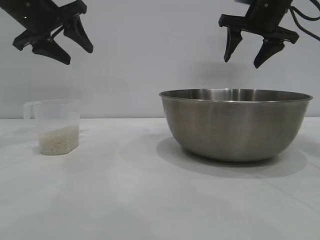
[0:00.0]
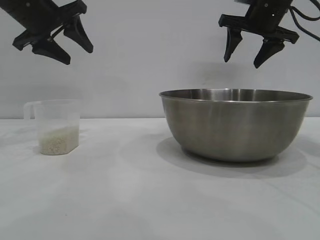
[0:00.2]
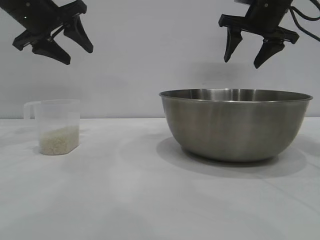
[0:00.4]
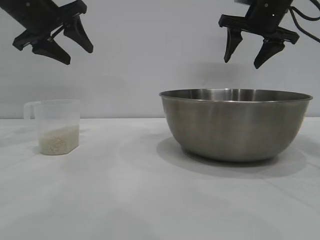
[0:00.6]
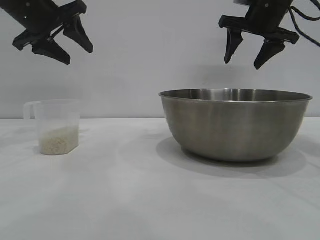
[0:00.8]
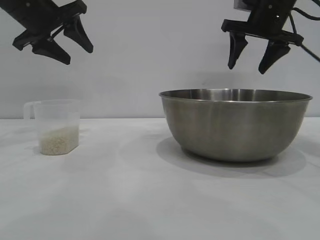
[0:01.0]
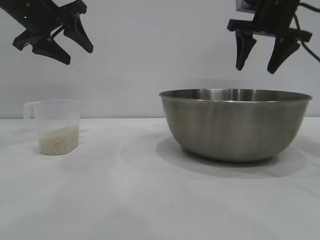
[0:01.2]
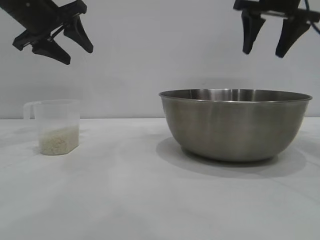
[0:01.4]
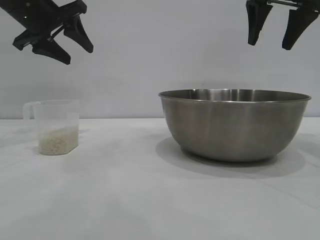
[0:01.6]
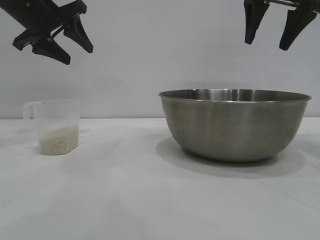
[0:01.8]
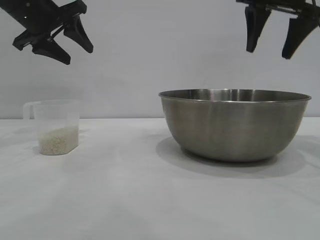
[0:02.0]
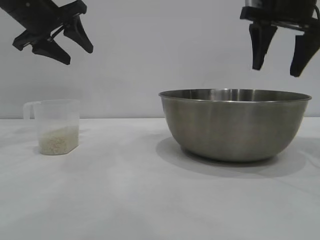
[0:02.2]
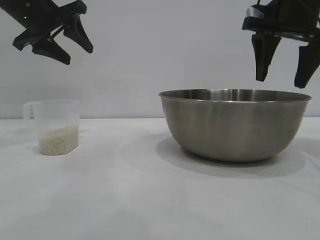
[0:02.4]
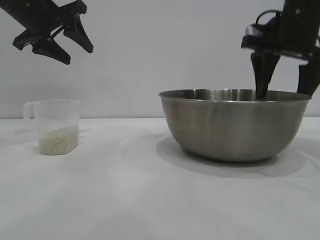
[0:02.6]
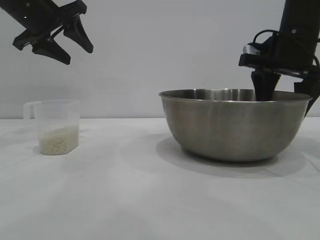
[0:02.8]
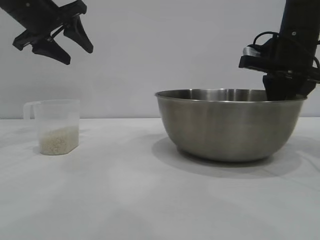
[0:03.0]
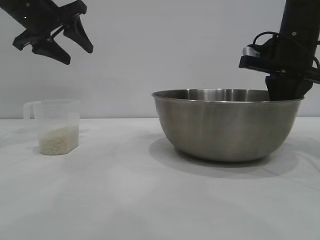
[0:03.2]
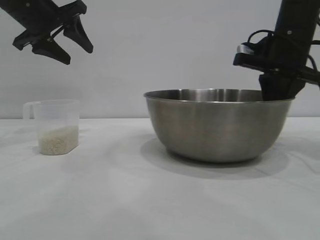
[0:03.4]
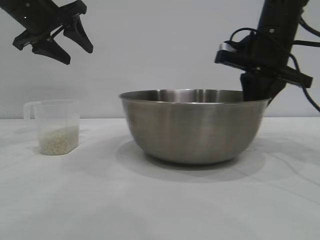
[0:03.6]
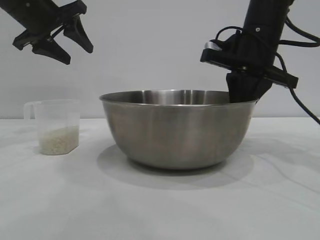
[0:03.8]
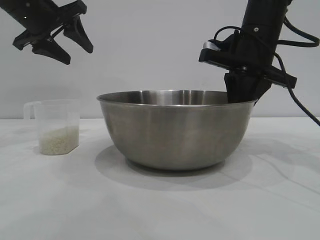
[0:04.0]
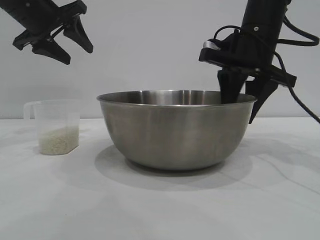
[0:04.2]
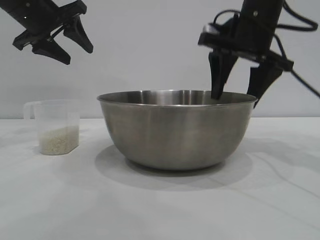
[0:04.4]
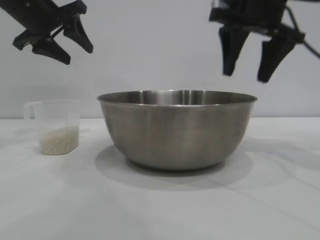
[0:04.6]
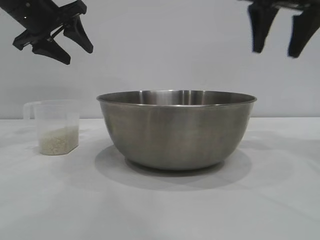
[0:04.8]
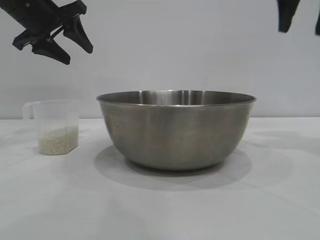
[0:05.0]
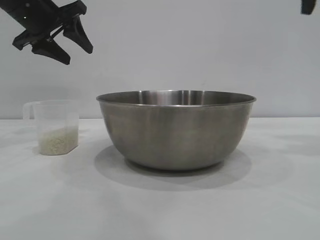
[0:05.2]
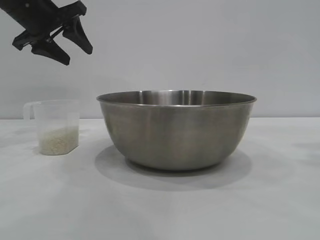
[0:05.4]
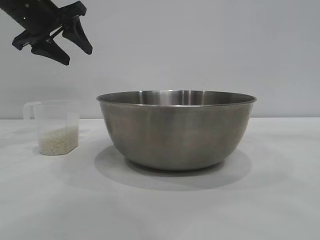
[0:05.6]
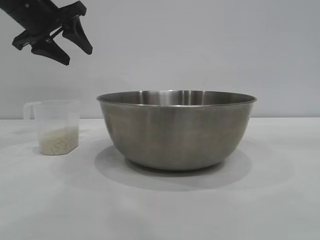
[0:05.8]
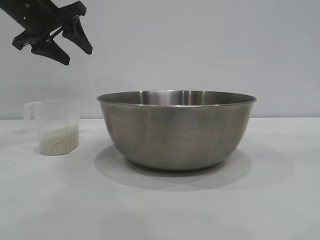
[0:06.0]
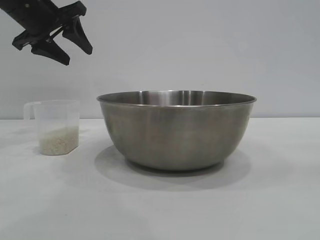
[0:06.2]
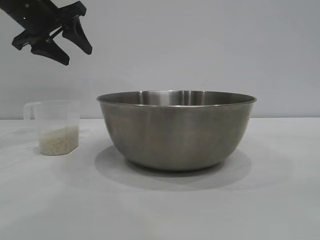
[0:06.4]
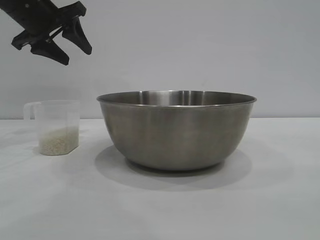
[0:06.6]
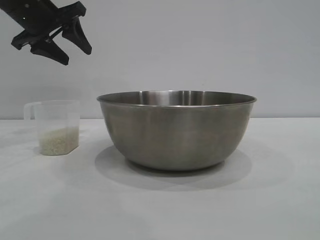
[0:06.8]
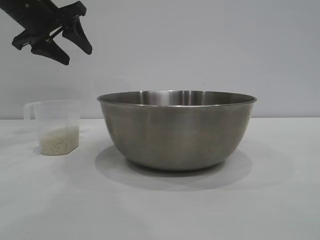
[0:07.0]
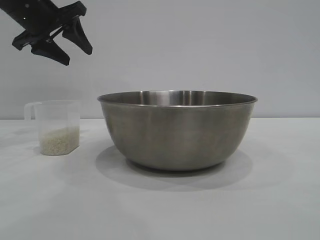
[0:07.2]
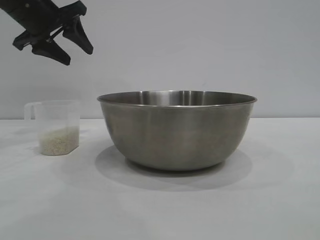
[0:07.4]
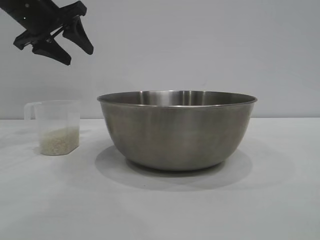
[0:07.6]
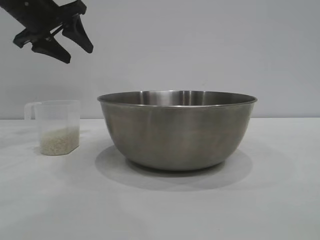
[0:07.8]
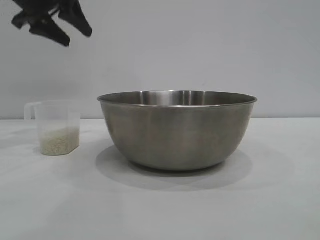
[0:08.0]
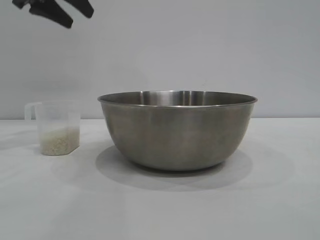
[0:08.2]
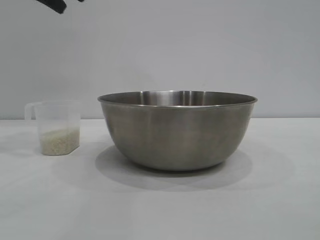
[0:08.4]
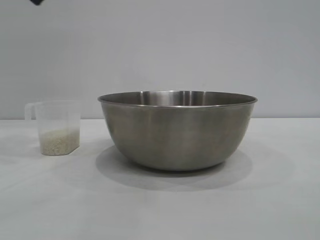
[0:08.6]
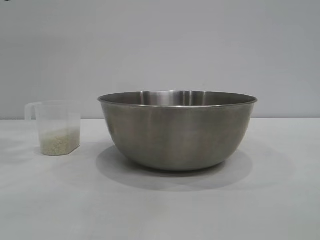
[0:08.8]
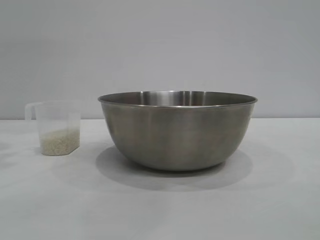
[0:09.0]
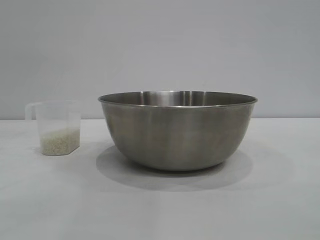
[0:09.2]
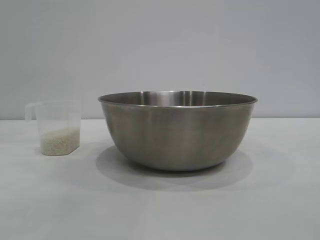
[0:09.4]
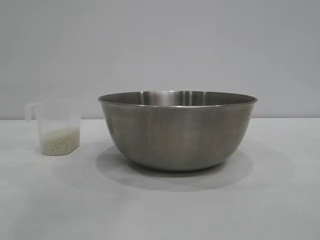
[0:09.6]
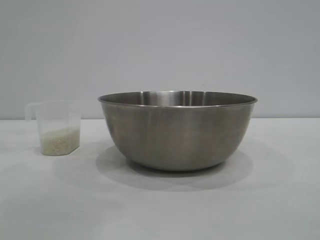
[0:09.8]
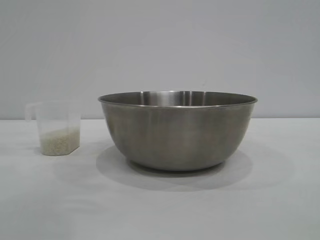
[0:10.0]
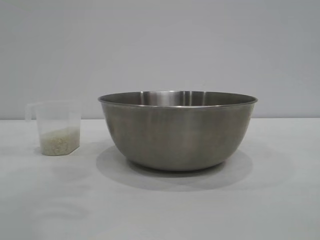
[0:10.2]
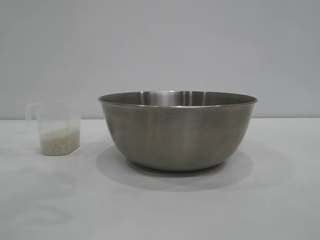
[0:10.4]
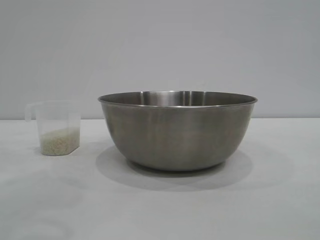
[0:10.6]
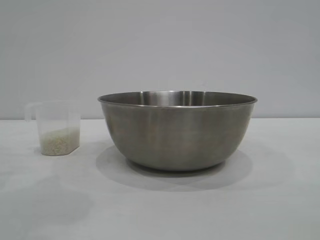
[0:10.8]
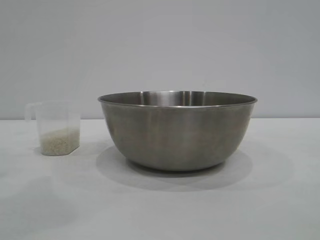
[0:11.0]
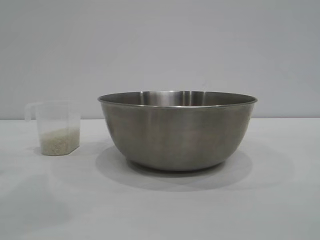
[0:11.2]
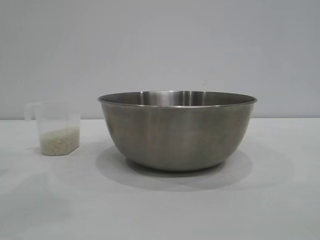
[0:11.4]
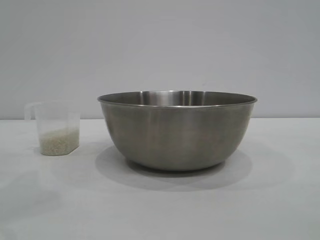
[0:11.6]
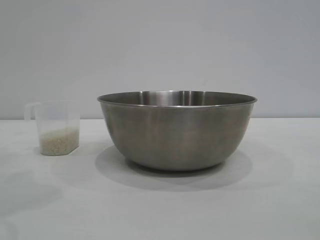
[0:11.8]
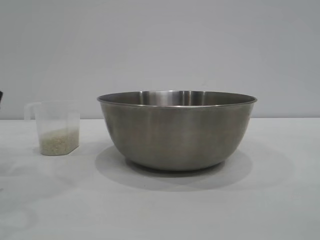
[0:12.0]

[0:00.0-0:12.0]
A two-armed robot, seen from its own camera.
Task of the whole recording: the right gripper grasp the rice container and place it in the center of the table, the left gripper grasp the rice scoop and pour the rice into the rice container.
Step, 0:00.0 to 0:04.6: Move the bowl to the center of view with the right gripper.

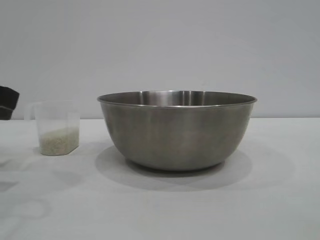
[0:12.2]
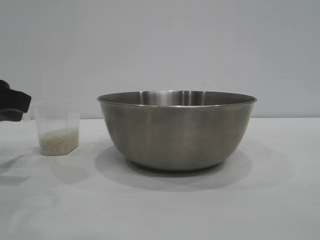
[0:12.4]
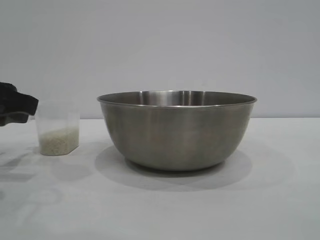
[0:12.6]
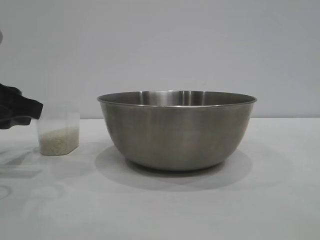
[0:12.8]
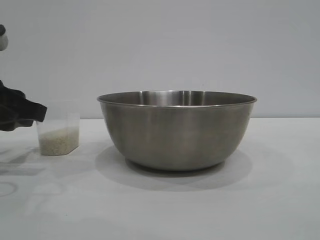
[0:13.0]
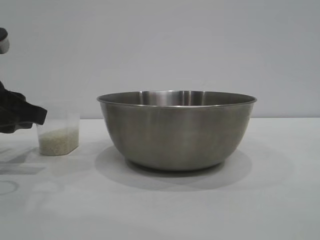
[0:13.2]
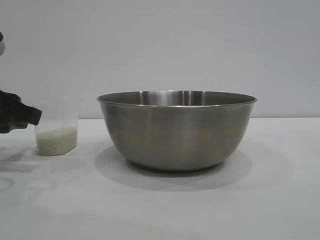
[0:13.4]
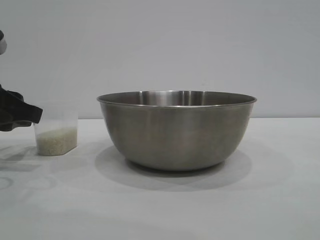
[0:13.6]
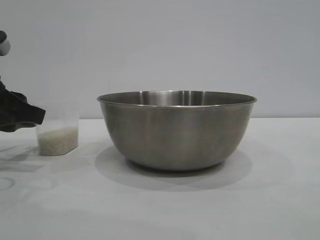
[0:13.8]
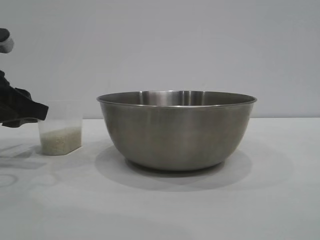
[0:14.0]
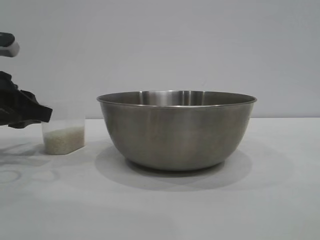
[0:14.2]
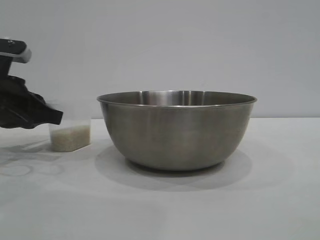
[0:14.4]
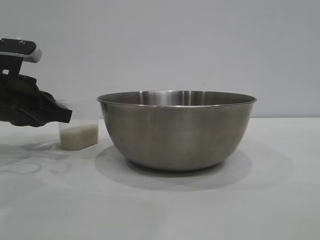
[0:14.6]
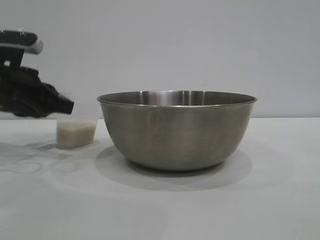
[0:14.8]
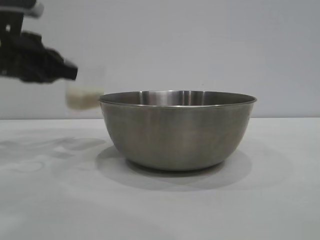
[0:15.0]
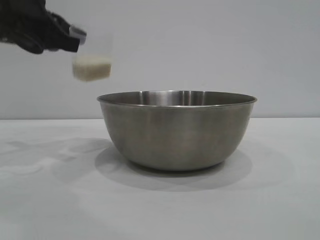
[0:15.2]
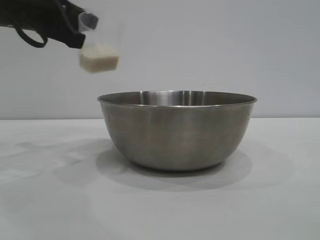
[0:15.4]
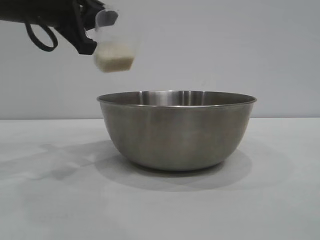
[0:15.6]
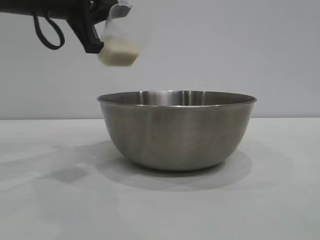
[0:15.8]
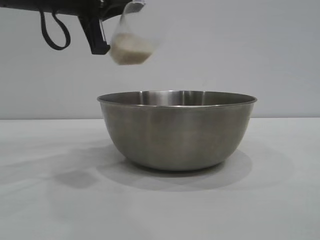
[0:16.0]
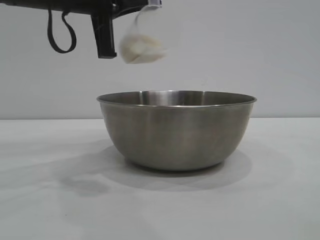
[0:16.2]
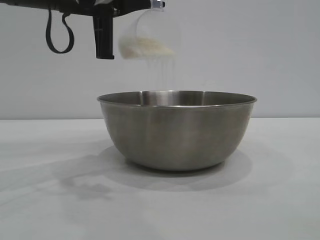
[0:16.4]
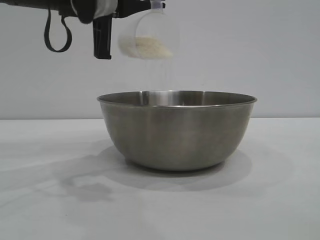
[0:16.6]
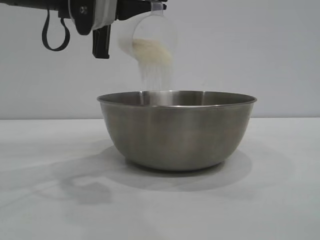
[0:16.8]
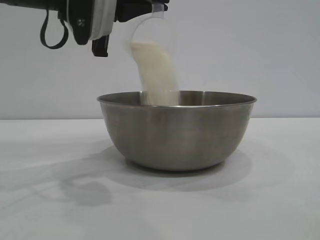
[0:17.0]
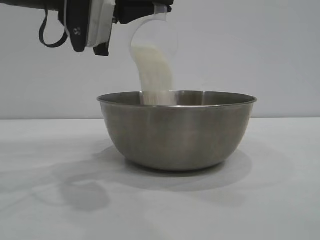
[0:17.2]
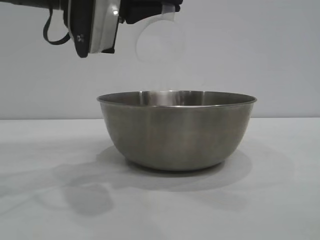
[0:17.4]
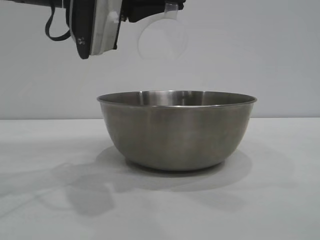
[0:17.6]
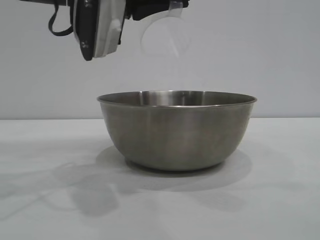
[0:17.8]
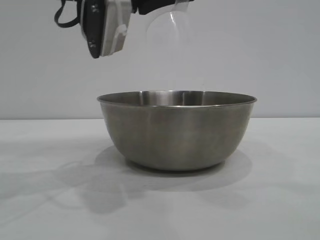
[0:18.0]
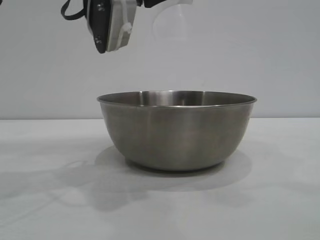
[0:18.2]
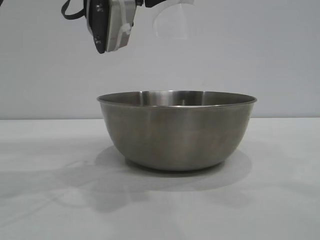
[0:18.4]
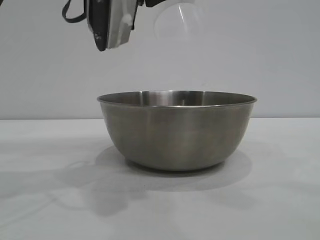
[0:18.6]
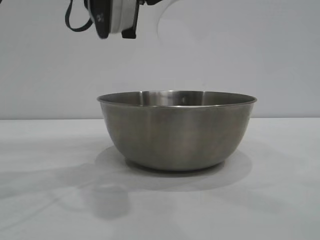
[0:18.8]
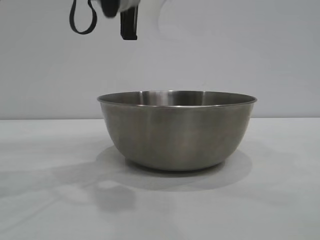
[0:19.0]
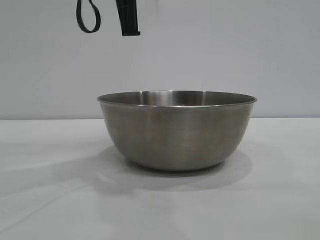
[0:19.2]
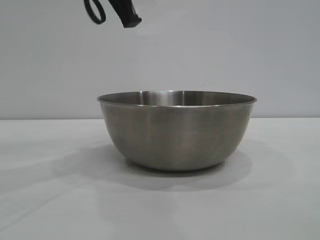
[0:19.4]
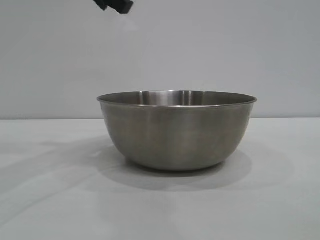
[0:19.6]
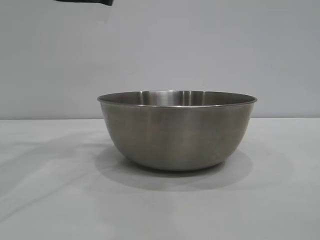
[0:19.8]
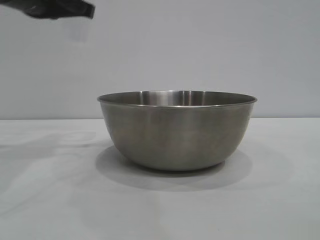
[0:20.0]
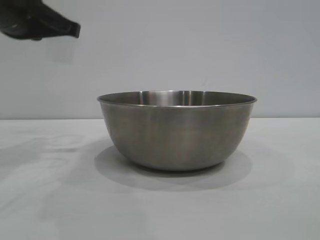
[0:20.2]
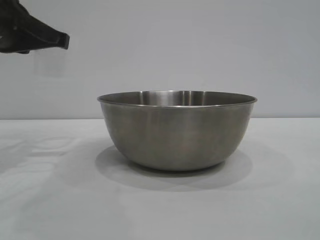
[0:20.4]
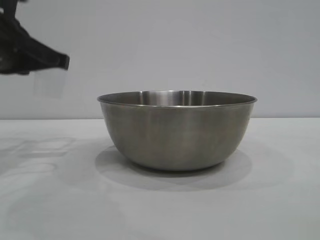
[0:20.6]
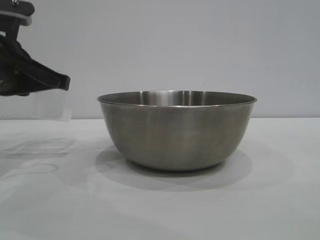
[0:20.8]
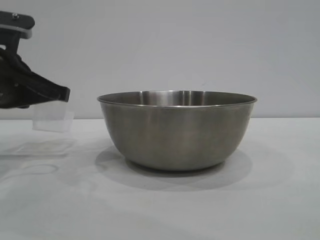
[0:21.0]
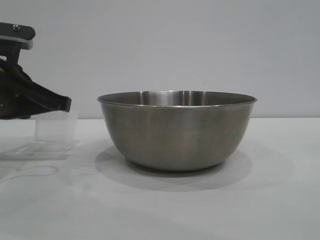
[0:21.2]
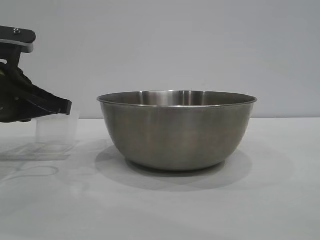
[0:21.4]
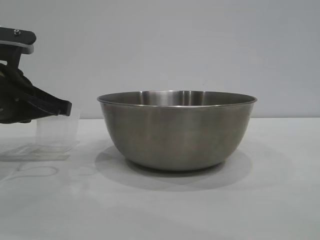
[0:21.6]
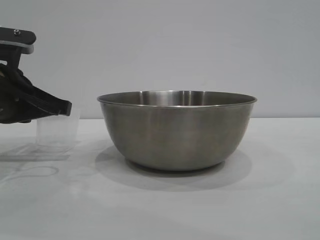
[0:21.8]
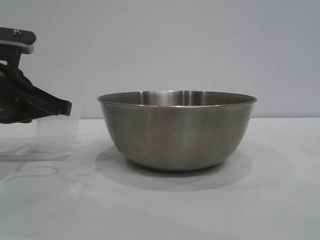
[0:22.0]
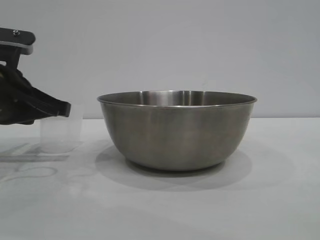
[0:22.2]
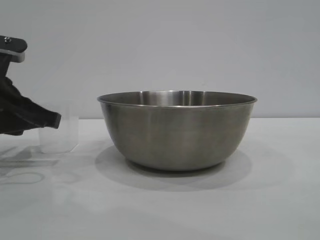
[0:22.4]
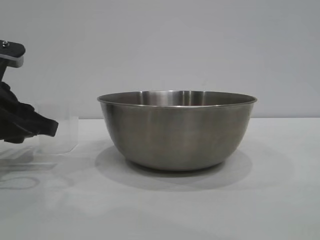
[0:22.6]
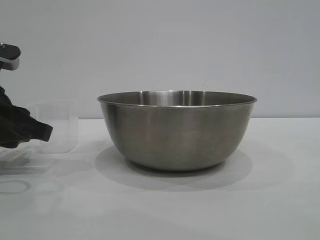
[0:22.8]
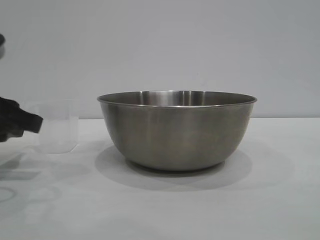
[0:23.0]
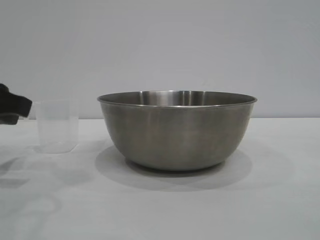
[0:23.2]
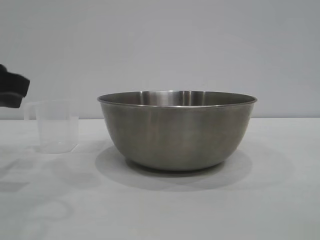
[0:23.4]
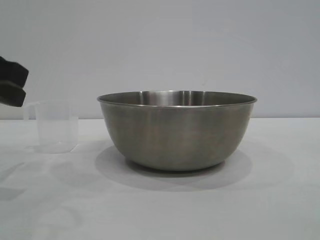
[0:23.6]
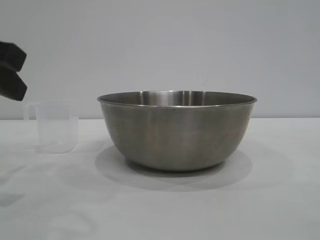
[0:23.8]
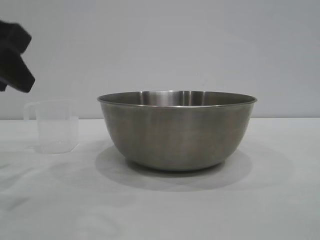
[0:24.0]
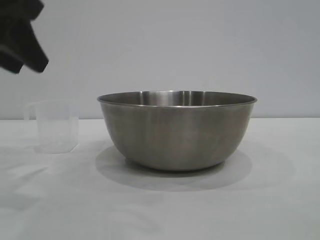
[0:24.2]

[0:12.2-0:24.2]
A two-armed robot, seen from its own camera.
Task of the whole recording: the right gripper grasp the rice container and place it in the center of the table, the left gripper grasp the rice scoop and pour the rice into the rice container.
Step, 0:12.2 to 0:14.8: Pick up the cup with rice in it with the left gripper.
Step, 0:15.2 to 0:19.4: Pour the rice from the cup into the bowl with the left gripper.
Step, 0:19.8 to 0:23.2: Place the cup on the table with the left gripper.
